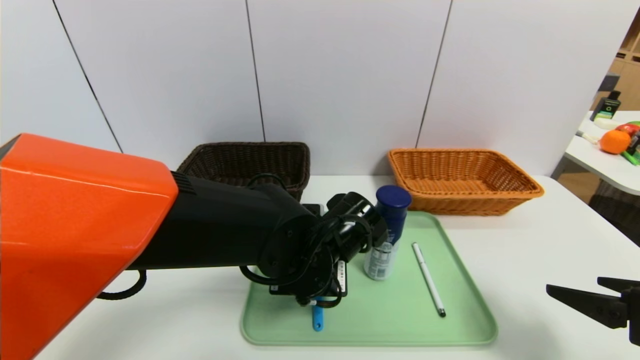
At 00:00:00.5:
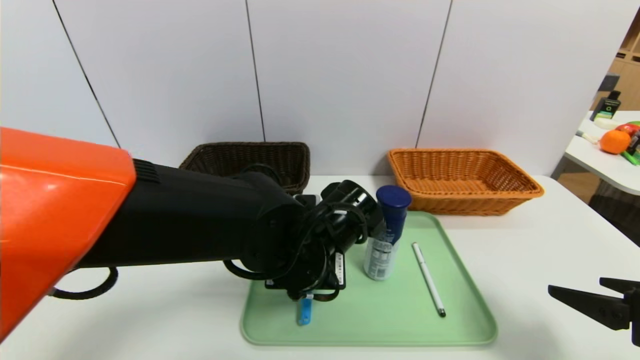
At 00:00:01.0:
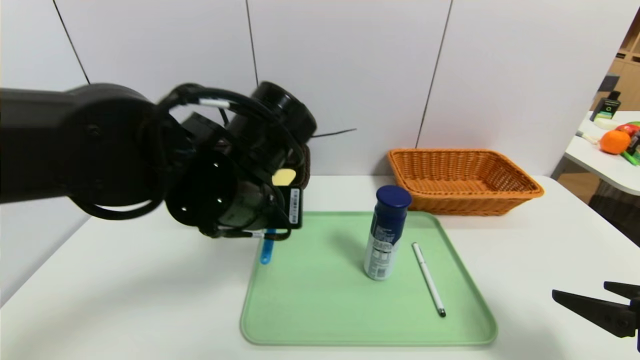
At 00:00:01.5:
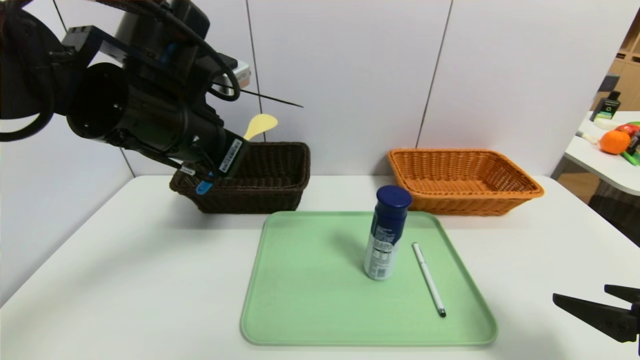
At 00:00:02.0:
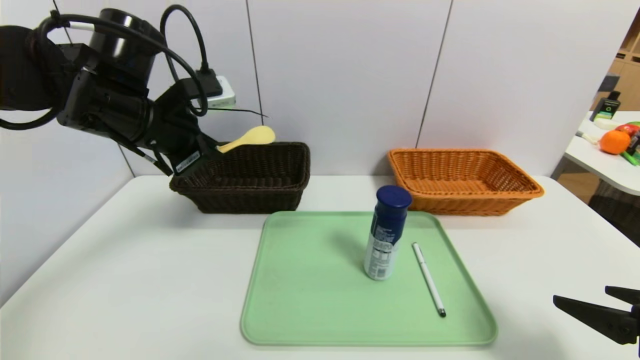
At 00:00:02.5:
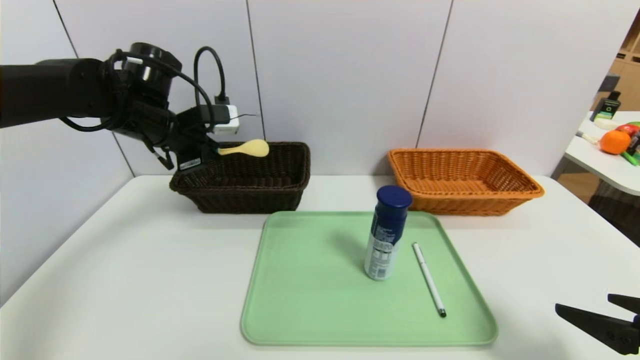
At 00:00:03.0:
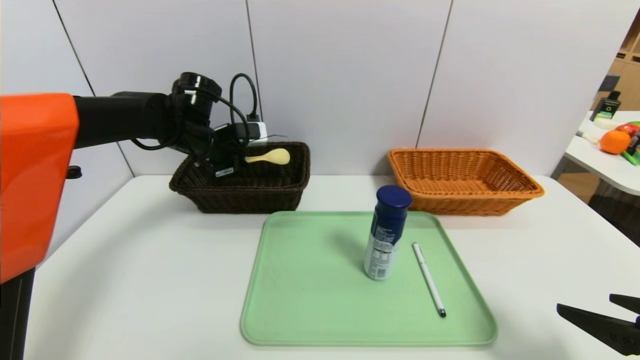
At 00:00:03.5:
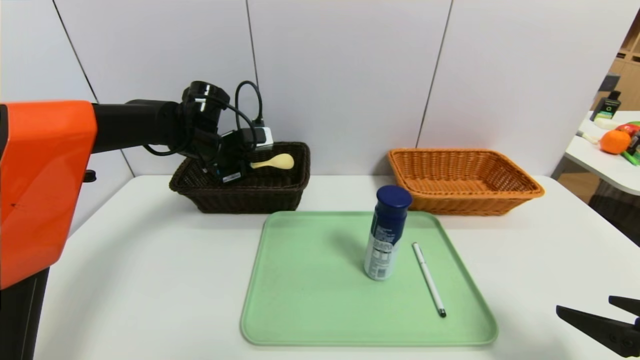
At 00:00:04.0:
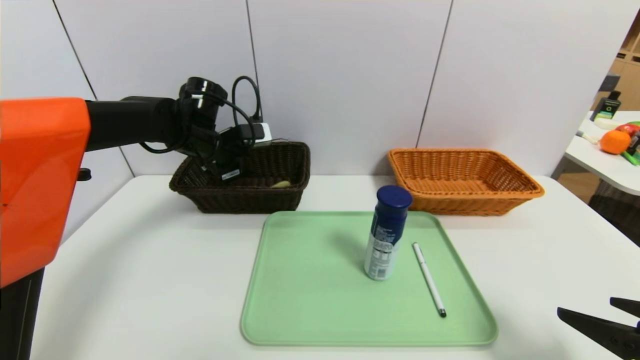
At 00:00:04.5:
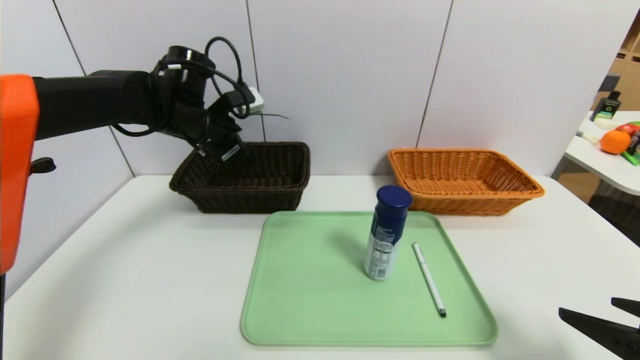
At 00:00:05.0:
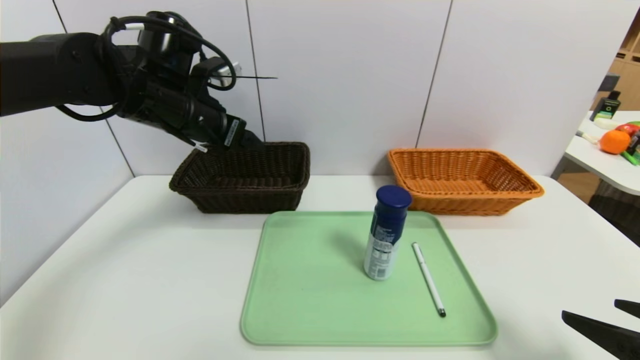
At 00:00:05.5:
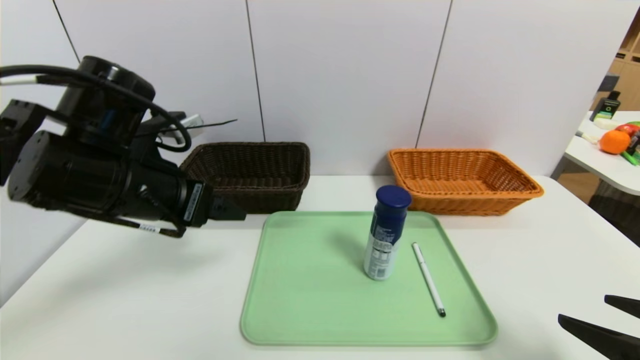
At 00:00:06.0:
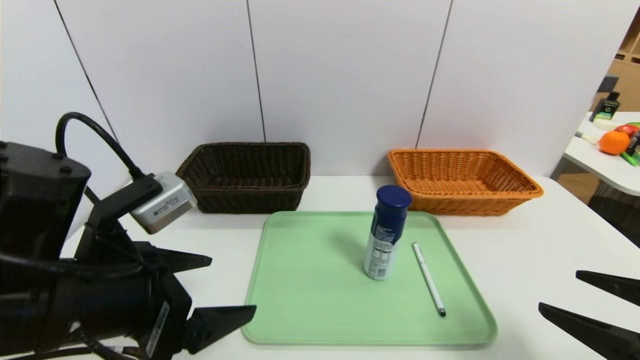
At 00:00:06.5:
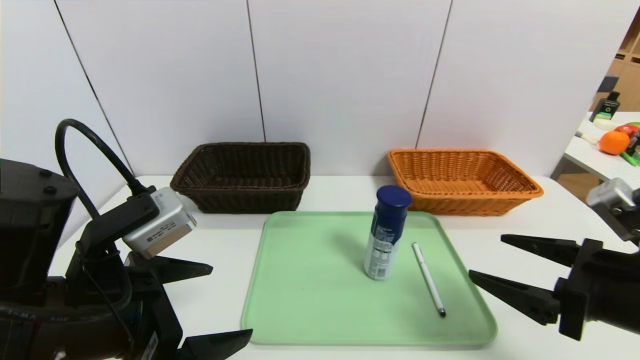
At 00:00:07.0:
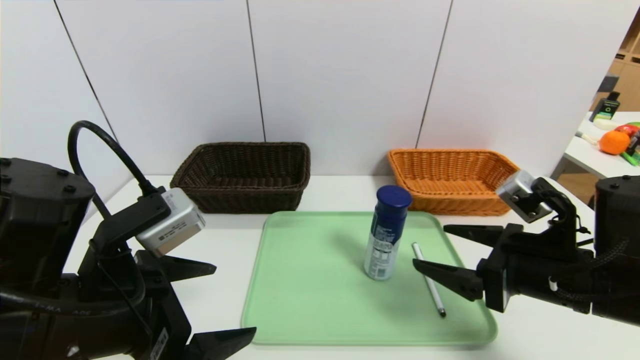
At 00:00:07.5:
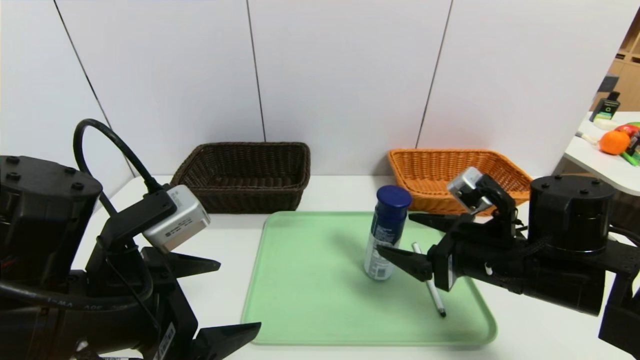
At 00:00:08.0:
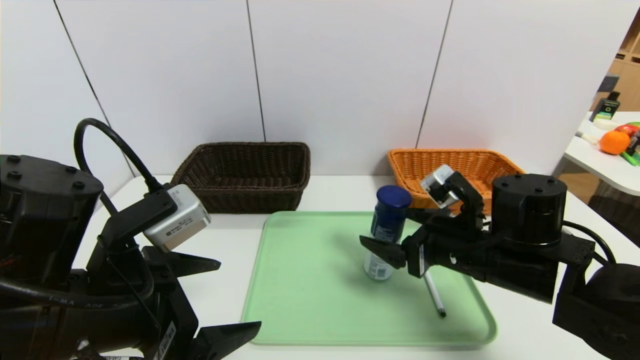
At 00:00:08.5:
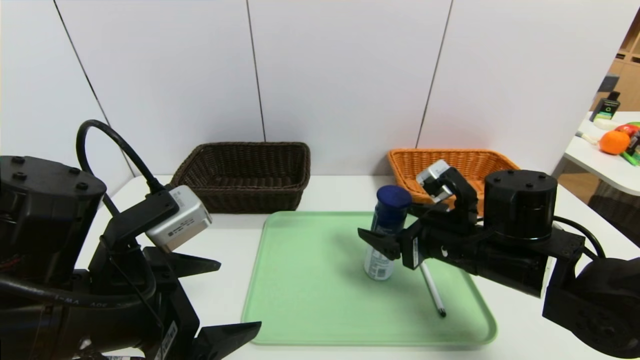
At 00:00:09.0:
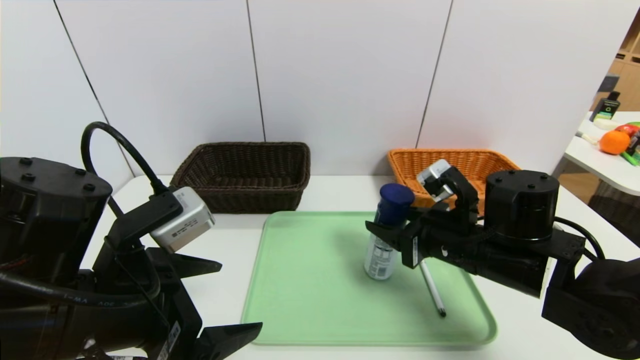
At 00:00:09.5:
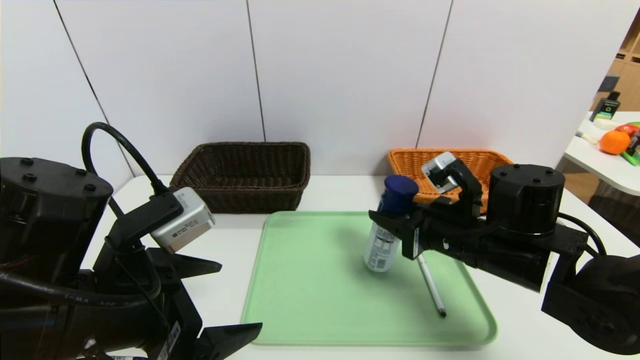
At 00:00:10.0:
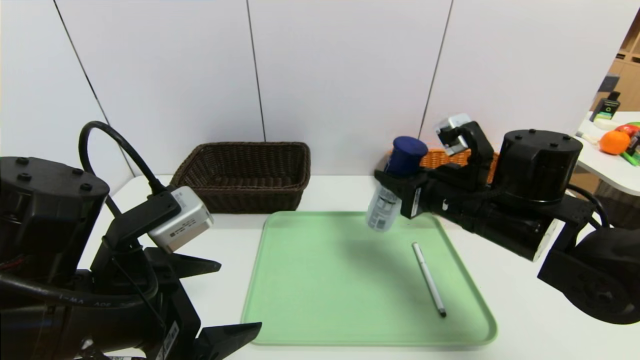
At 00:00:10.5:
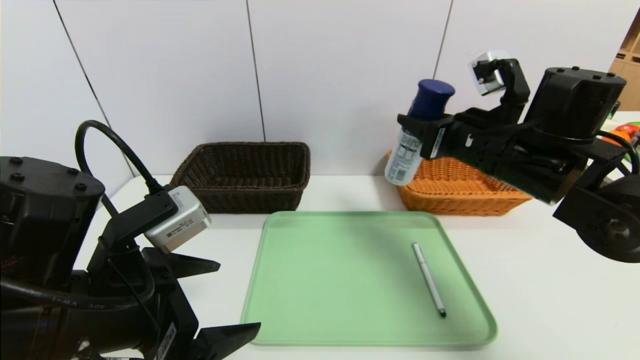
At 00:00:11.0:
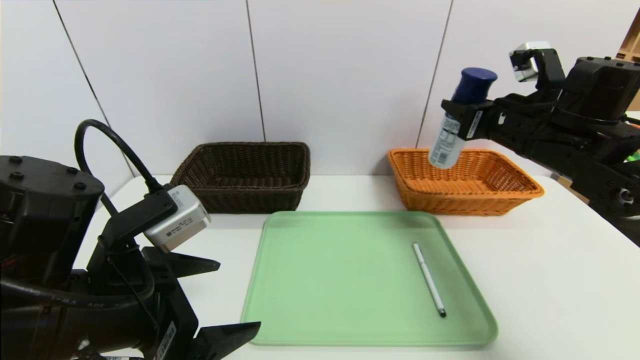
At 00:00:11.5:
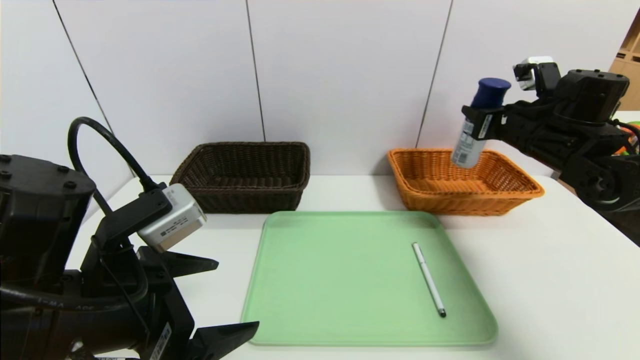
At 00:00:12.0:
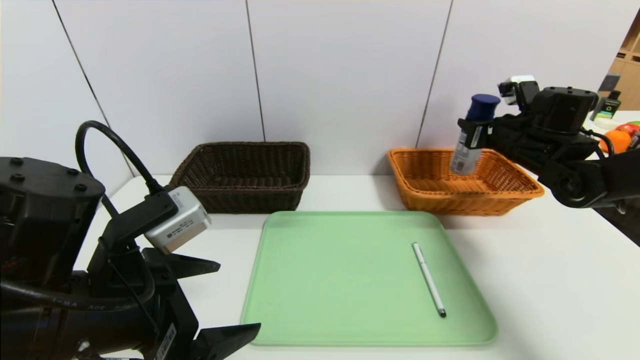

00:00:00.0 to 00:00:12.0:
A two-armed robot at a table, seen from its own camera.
Task of the whole recording: place the food in the right basket with the right gripper, and place the non food items in the left basket with the left gripper.
Step, 00:00:00.0 to 00:00:04.0: Grasp the back scratcher and put it in the left basket.
00:00:00.0 to 00:00:02.0: The left gripper goes some 25 cm to the left and upward, and closes.
00:00:02.0 to 00:00:04.0: The left gripper moves forward and downward, roughly 15 cm, and opens its fingers.
00:00:04.0 to 00:00:06.0: The left gripper moves backward, about 30 cm, and opens up.
00:00:06.0 to 00:00:08.0: The right gripper is displaced forward and to the left by approximately 20 cm.
00:00:08.0 to 00:00:10.0: The right gripper shifts by approximately 5 cm, and closes.
00:00:10.0 to 00:00:12.0: The right gripper heads to the right and forward, covering roughly 20 cm.

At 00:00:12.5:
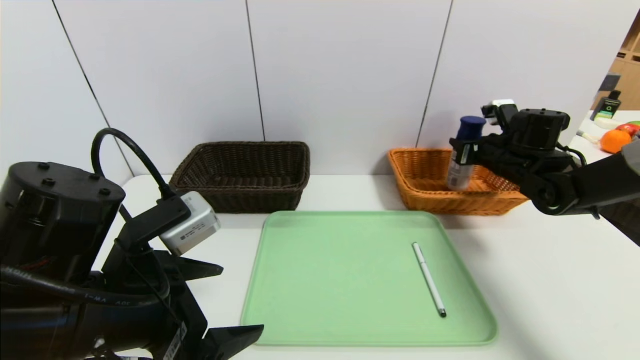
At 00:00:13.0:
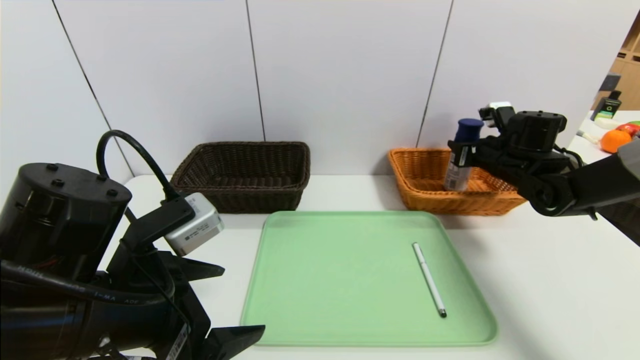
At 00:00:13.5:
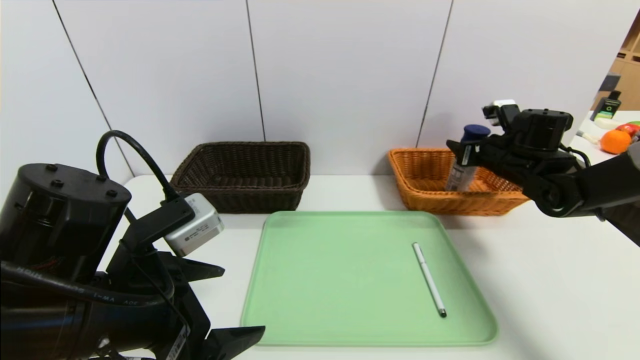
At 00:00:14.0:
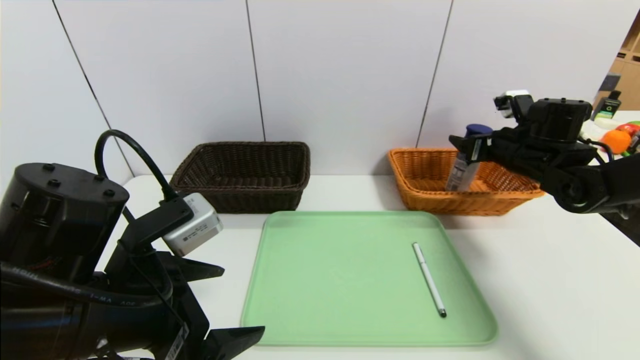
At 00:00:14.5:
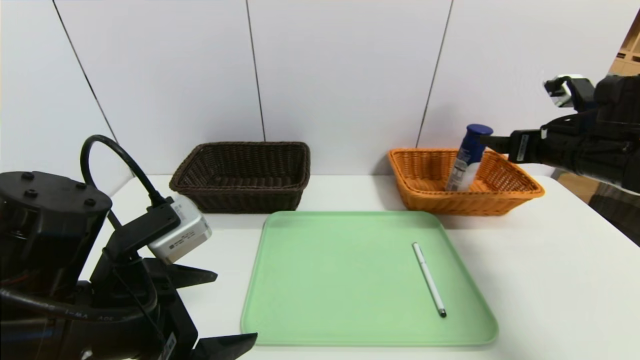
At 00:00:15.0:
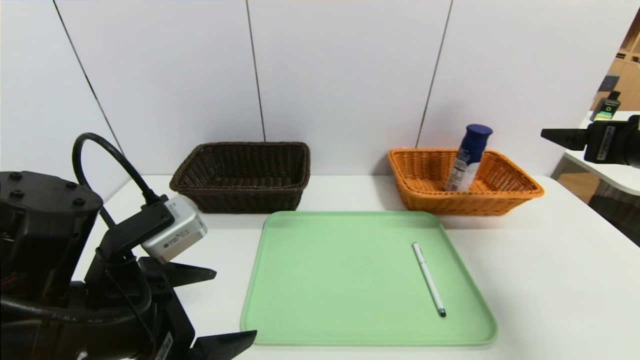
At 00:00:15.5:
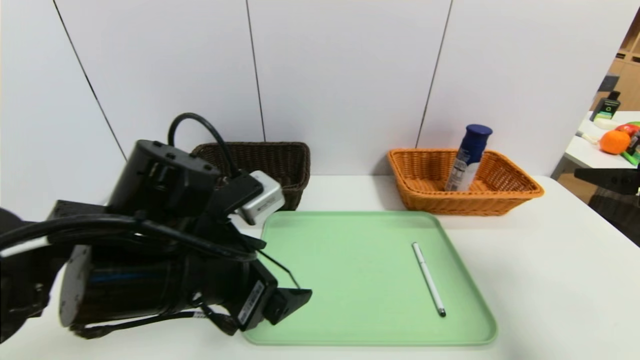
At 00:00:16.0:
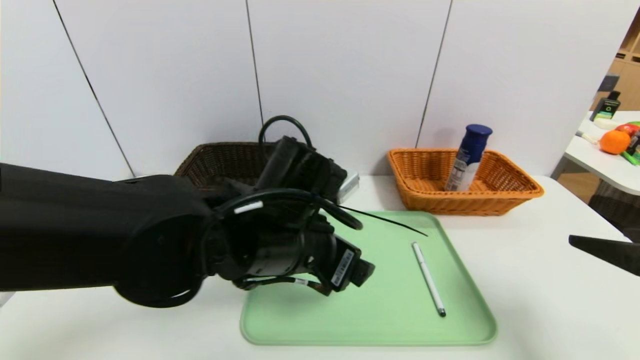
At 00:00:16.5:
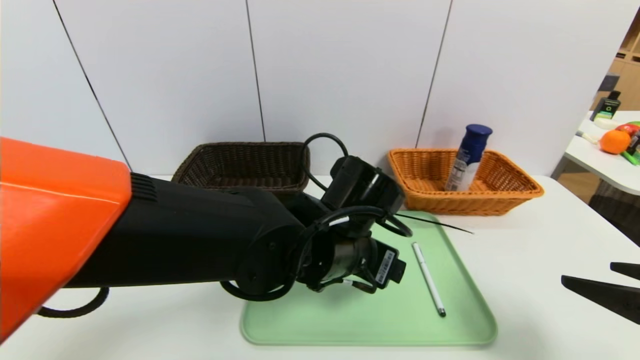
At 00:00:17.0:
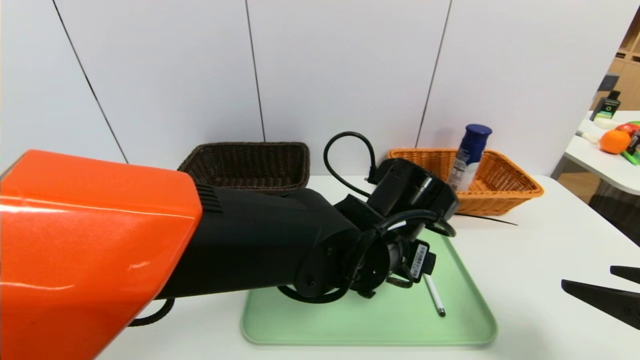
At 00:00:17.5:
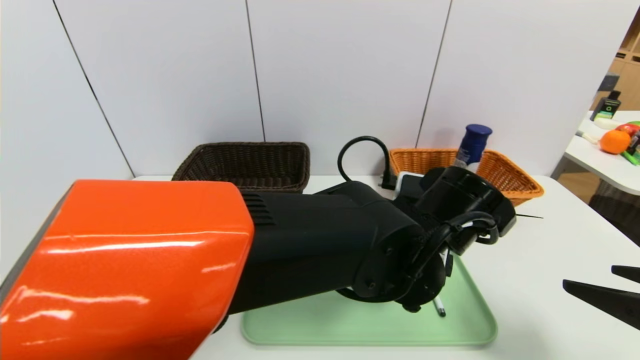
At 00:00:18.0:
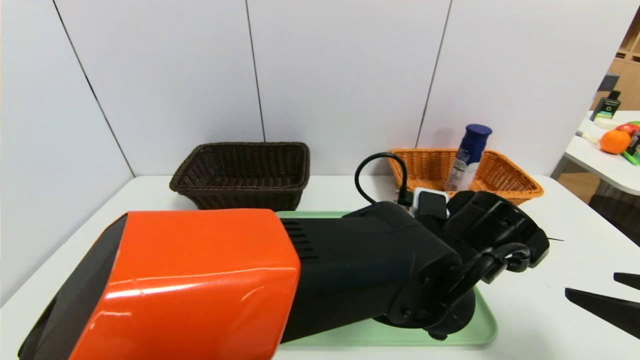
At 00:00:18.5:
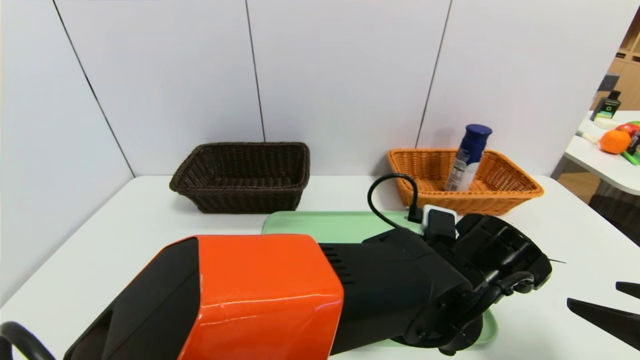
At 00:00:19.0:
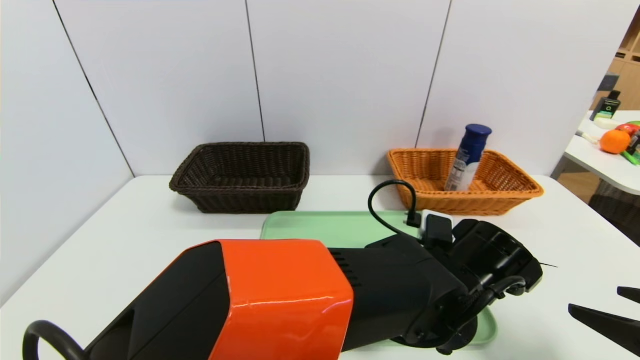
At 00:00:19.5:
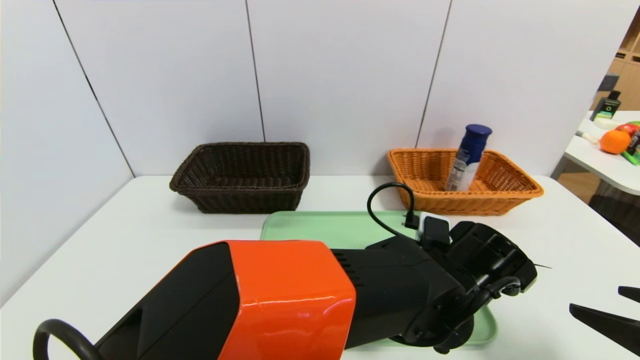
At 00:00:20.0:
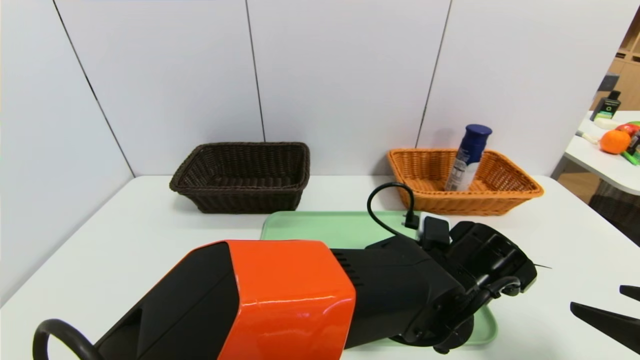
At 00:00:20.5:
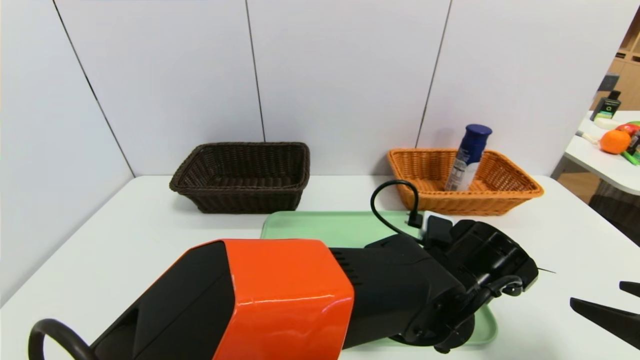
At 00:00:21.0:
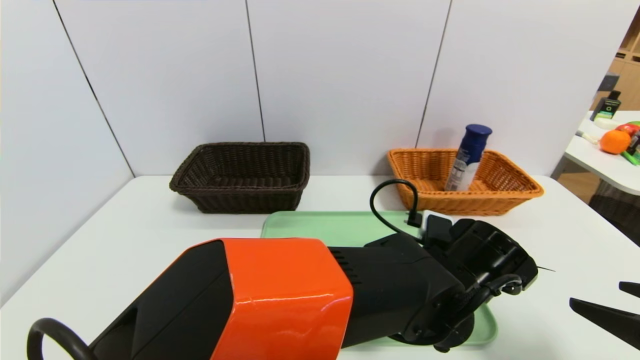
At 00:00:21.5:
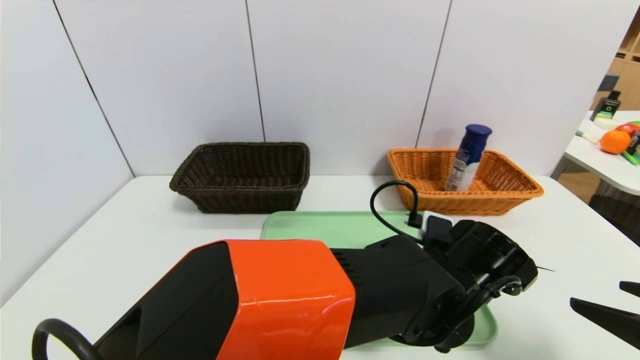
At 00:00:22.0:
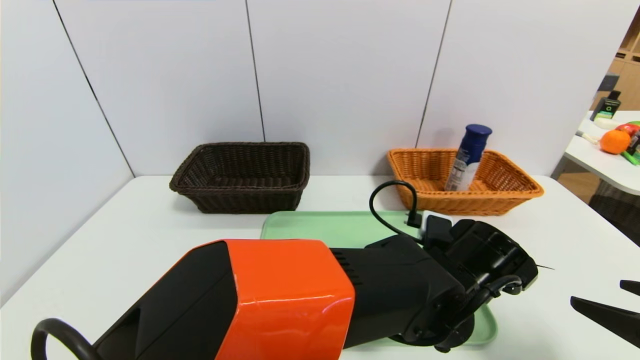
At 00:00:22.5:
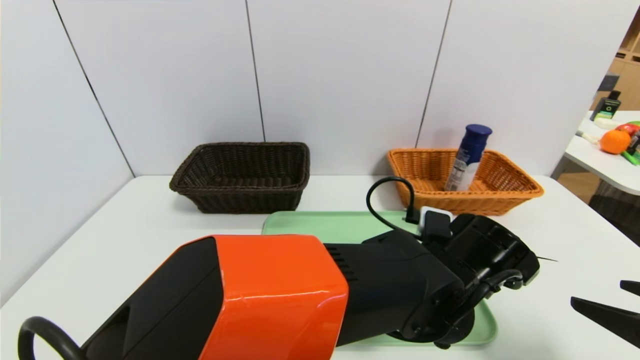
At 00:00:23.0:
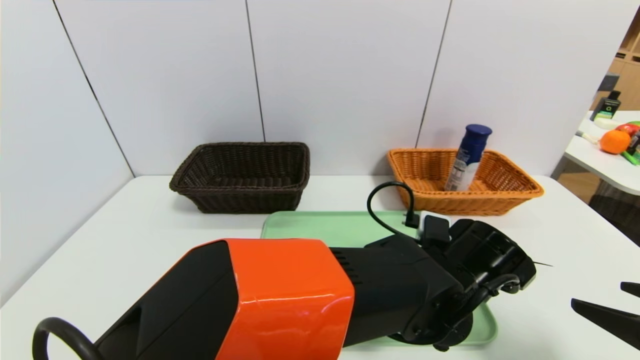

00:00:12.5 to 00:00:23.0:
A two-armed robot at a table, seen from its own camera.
Task of the whole recording: place the food in the right basket with the right gripper, and place the non food items in the left basket with the left gripper.
00:00:12.5 to 00:00:14.5: The right gripper is displaced backward and upward by about 15 cm, and opens its fingers.
00:00:14.5 to 00:00:16.5: The left gripper is displaced to the right and forward by some 25 cm. Meanwhile the right gripper is displaced backward by some 20 cm.
00:00:16.5 to 00:00:19.0: The left gripper is displaced to the right by roughly 10 cm.
00:00:19.0 to 00:00:23.0: The two grippers keep their place.
